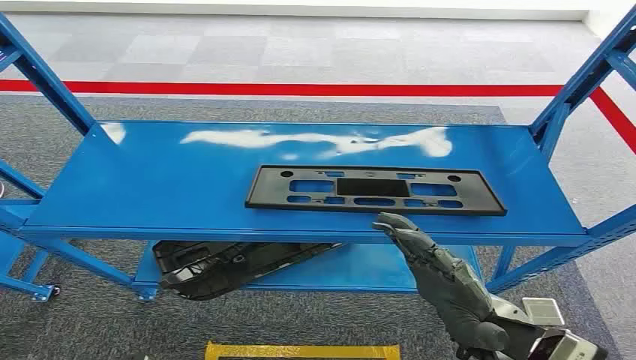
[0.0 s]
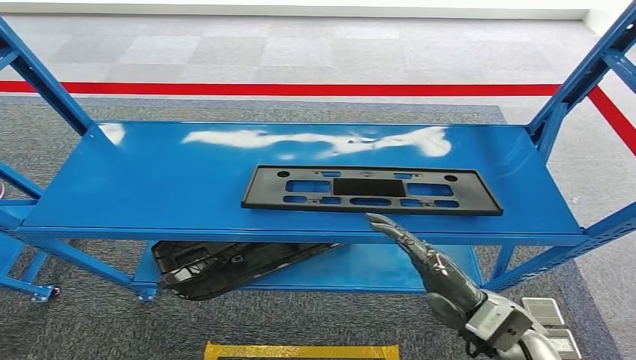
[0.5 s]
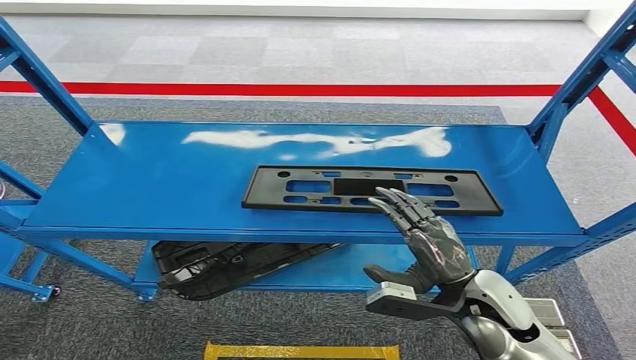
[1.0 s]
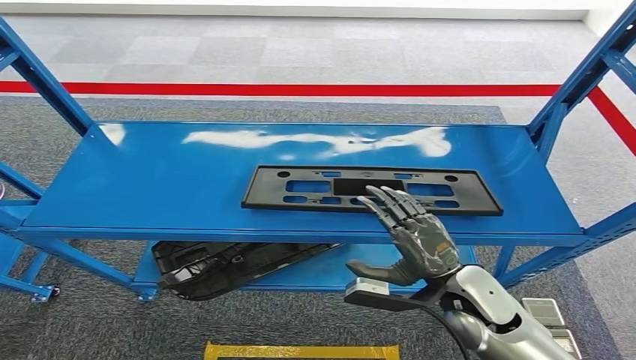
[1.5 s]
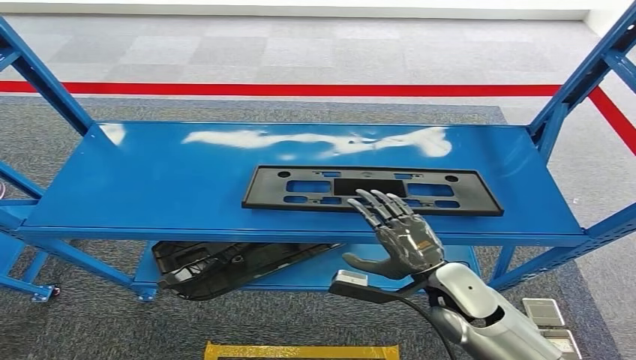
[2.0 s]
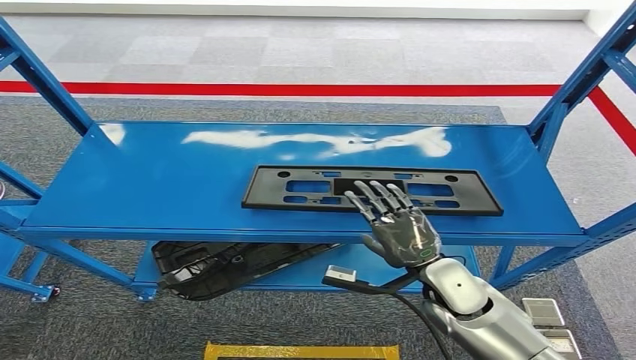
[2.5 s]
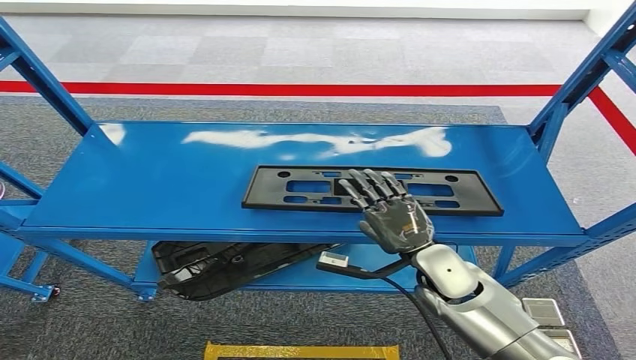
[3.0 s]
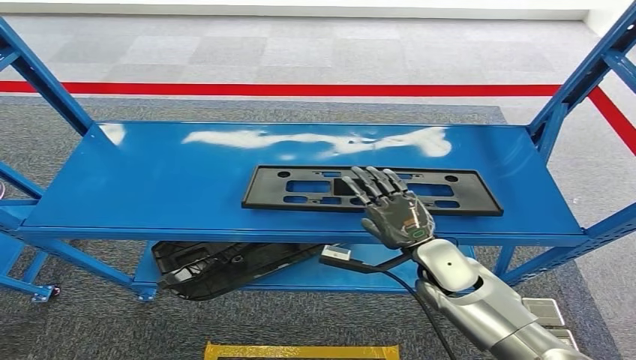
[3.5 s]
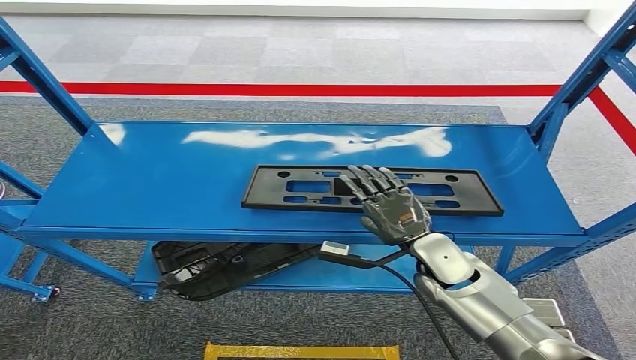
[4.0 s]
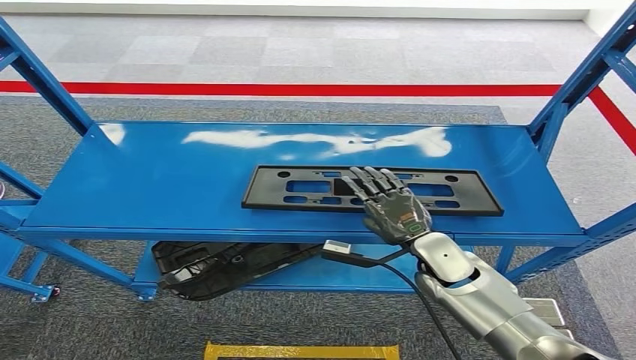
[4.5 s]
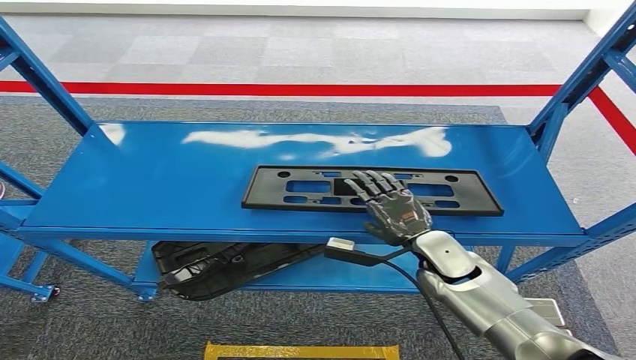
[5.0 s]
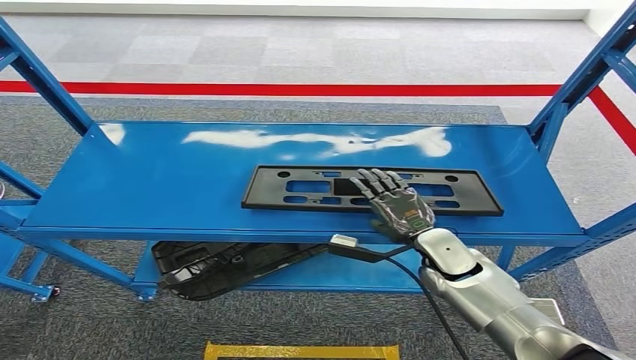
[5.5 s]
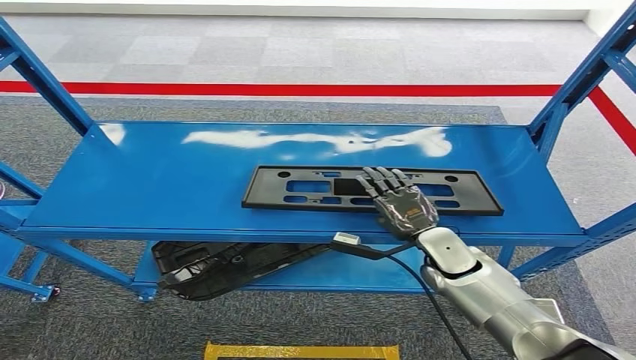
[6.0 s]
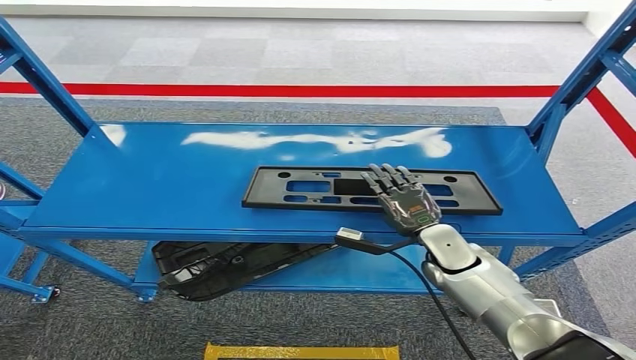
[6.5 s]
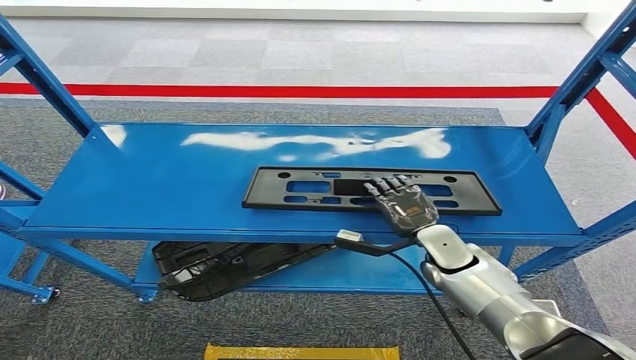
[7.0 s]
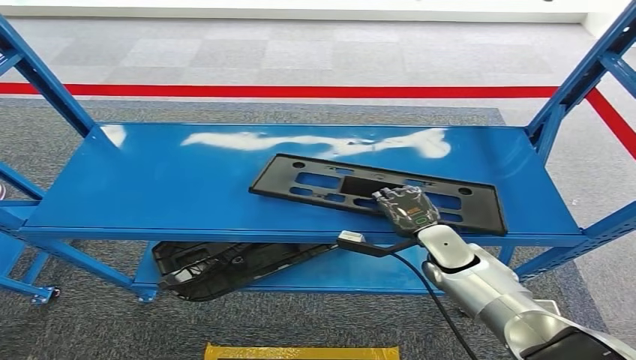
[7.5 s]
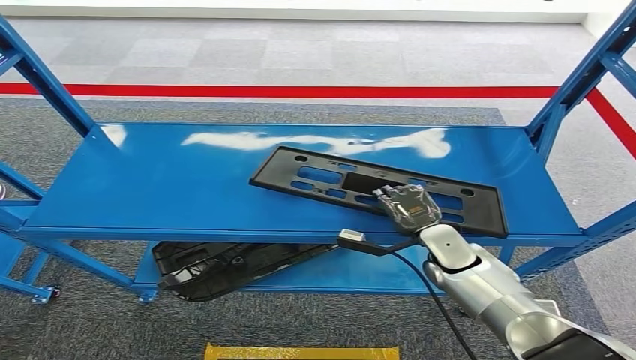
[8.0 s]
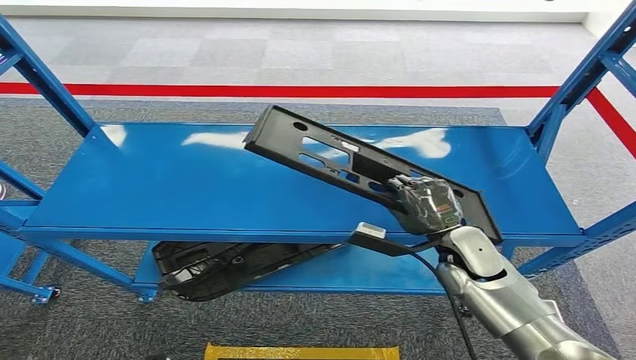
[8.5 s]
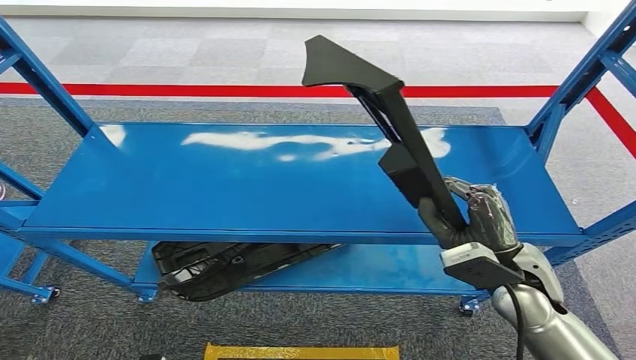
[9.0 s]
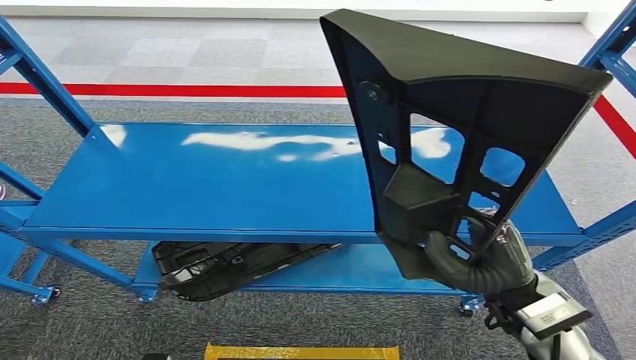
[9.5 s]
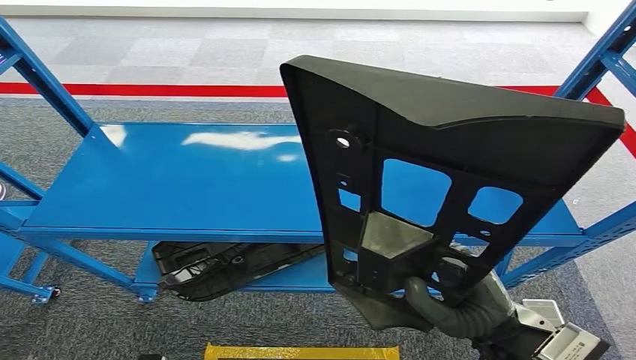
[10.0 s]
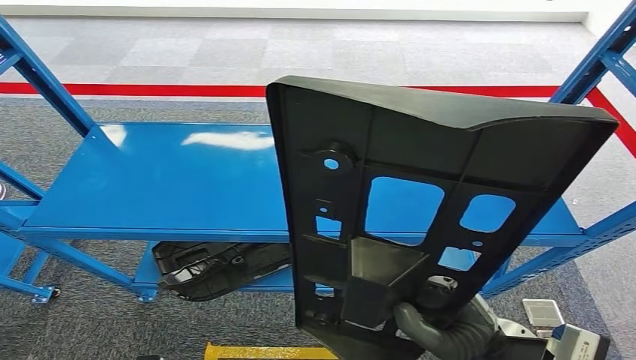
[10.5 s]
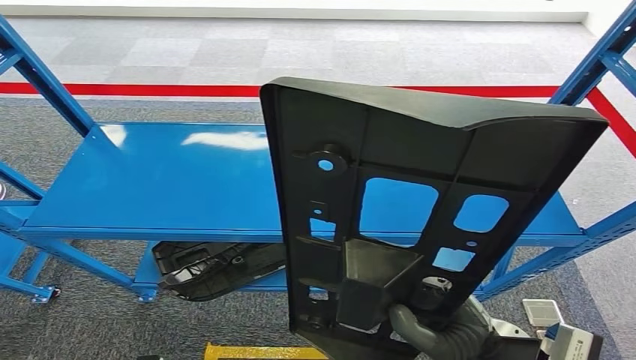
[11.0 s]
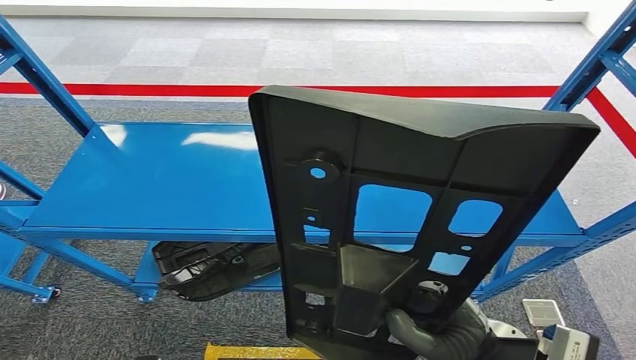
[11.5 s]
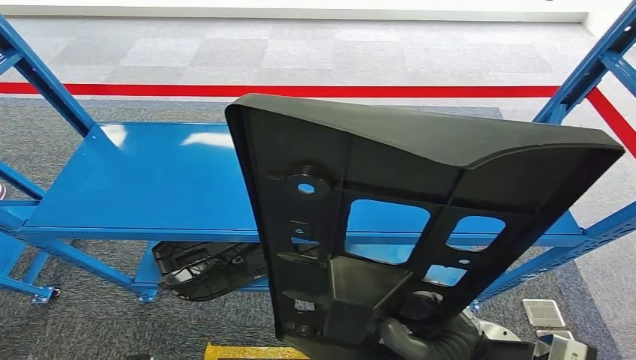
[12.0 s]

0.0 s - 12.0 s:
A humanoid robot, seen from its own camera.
Step, 0.0 s - 9.5 s: Pick up the large material from the shelf.
2.0 s - 4.0 s: The right hand goes some 5 cm forward.
4.0 s - 8.0 s: The hands make only small movements.

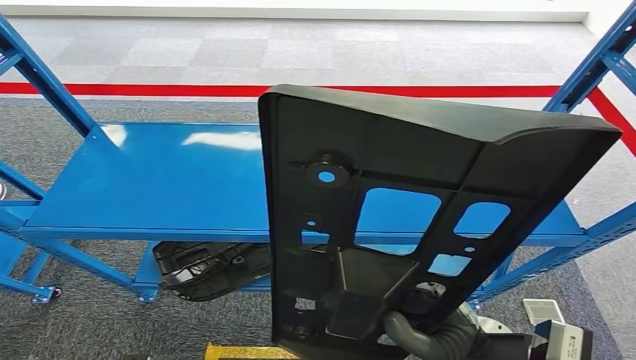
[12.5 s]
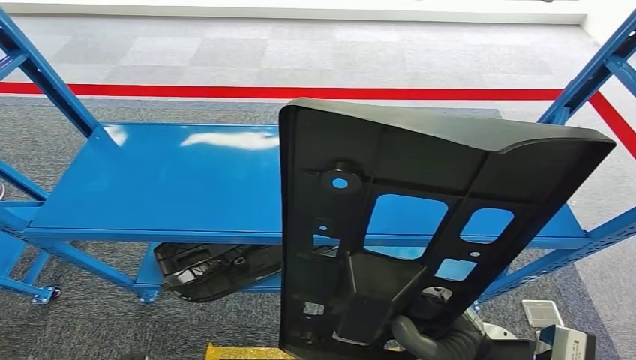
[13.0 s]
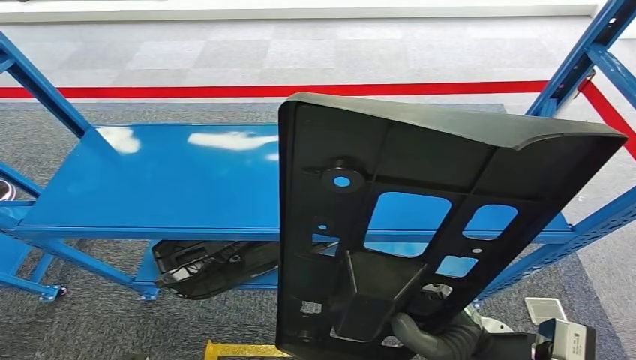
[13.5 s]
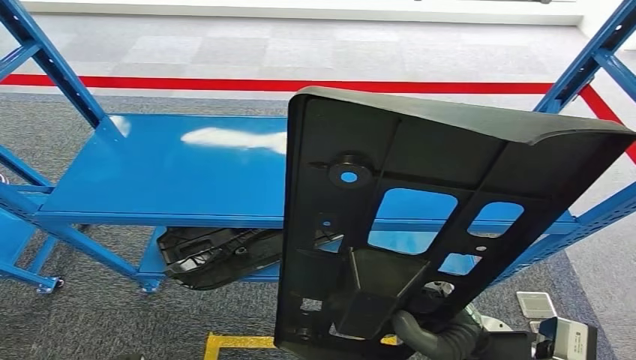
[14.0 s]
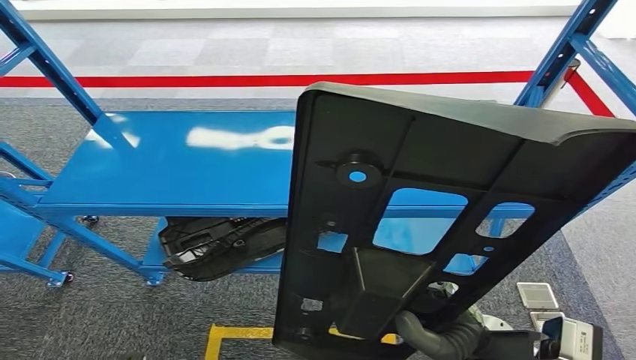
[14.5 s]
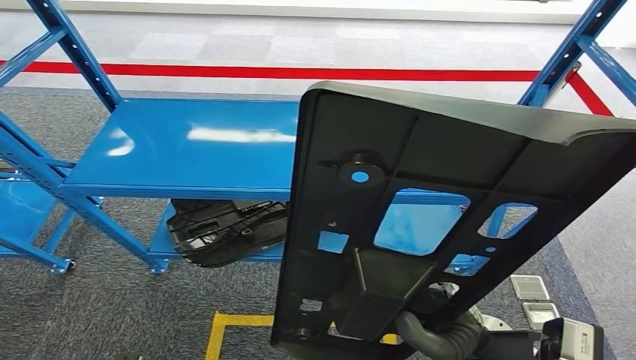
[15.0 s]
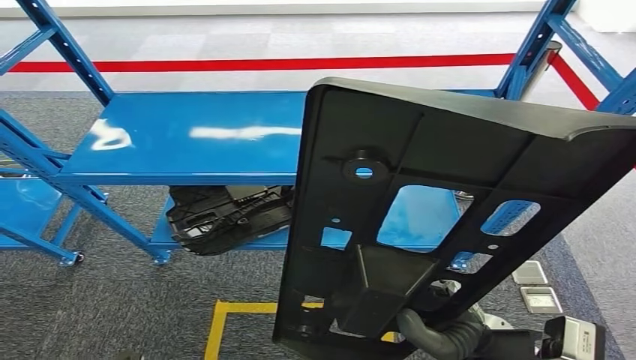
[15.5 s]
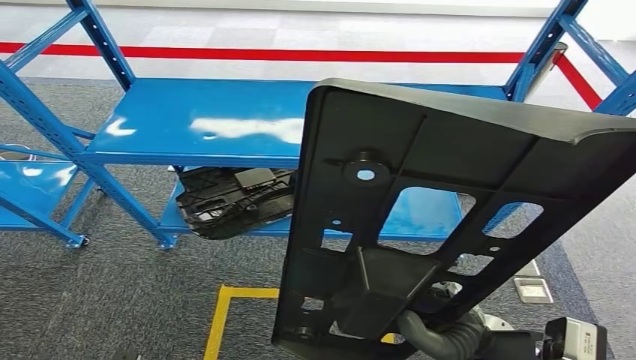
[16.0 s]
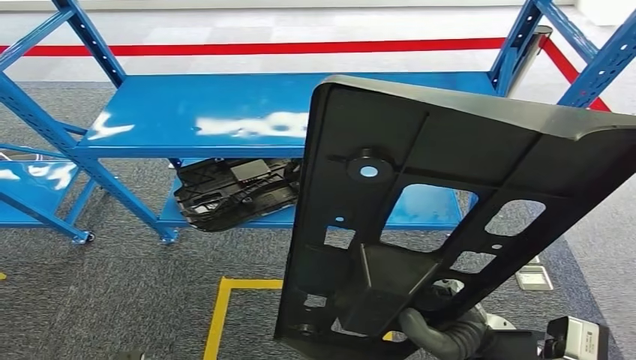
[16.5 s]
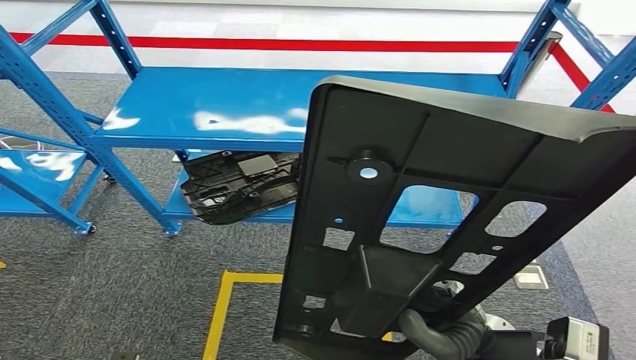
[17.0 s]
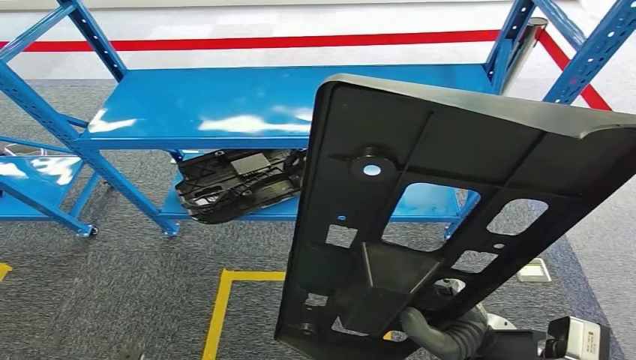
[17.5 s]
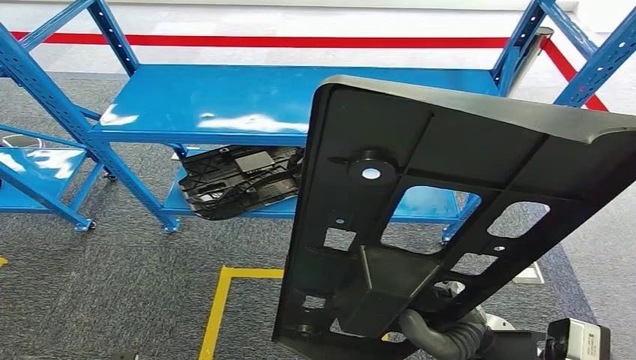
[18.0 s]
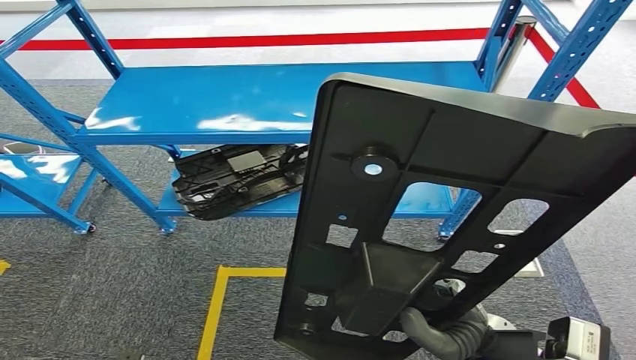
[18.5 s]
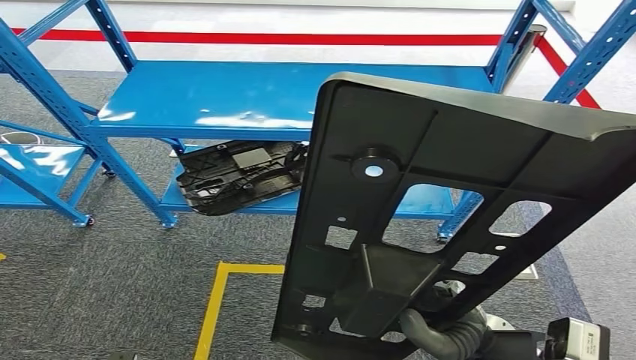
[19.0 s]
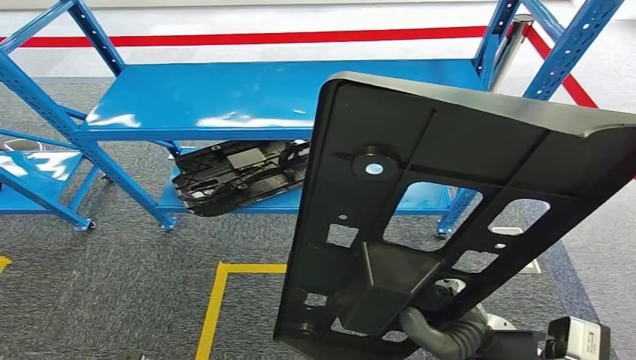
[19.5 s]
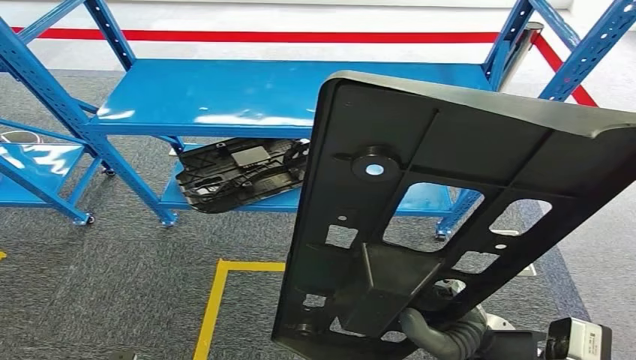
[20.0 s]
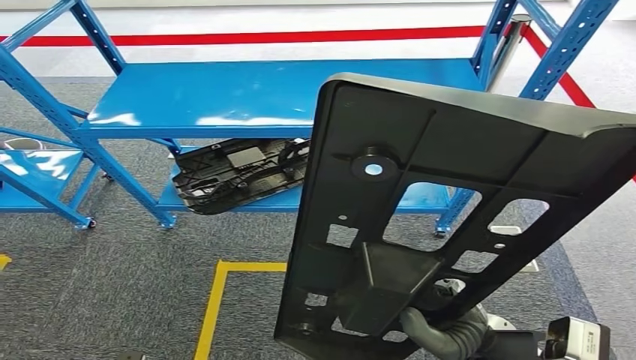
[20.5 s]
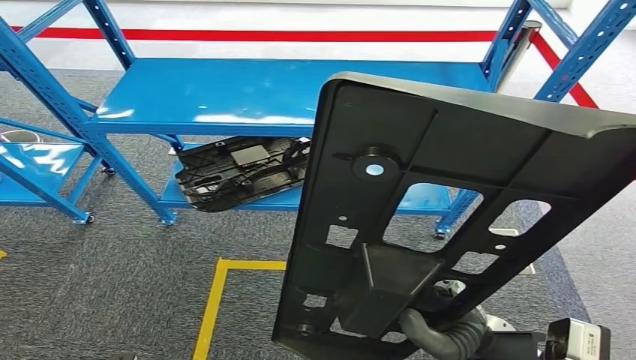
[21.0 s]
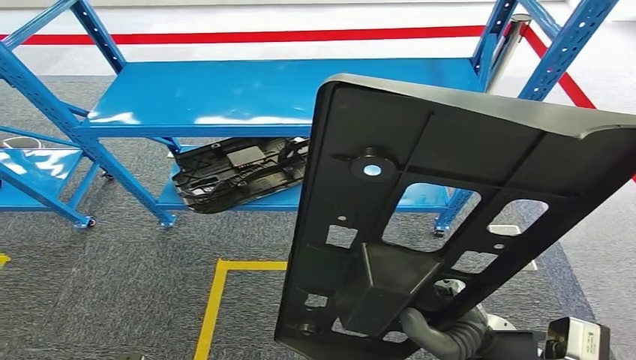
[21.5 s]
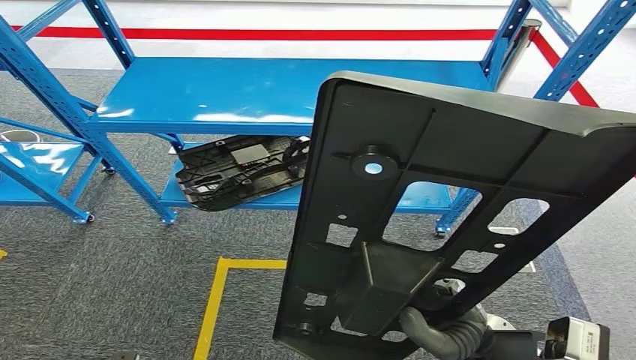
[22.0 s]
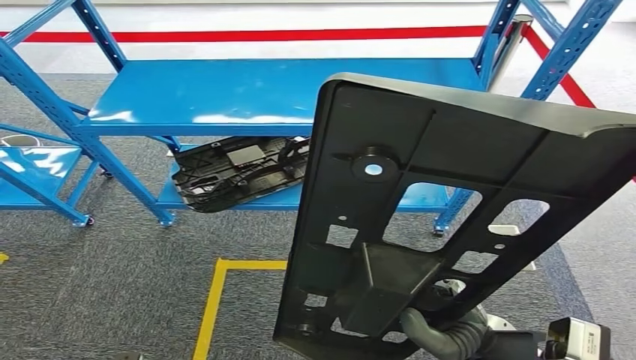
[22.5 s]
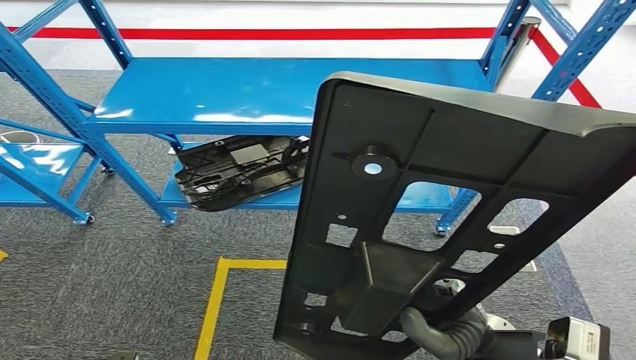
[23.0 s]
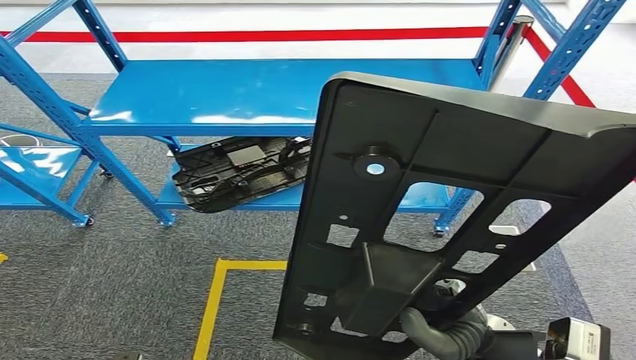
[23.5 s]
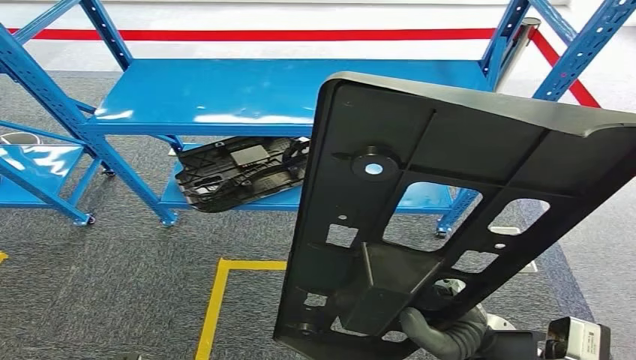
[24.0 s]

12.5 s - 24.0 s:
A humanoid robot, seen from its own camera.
20.0 s - 24.0 s: Both hands stay put.
